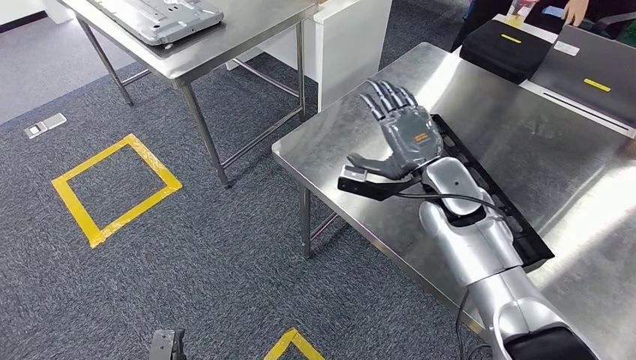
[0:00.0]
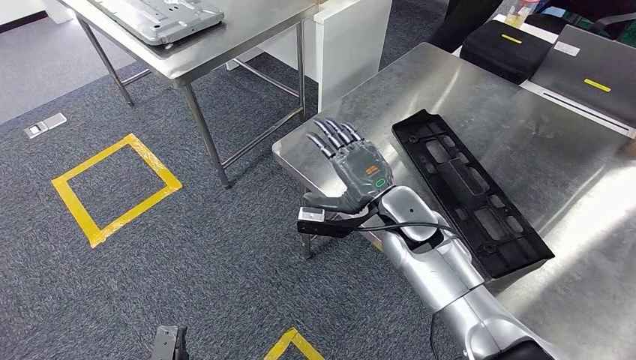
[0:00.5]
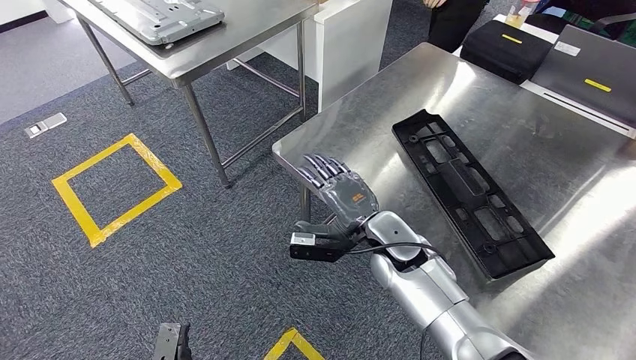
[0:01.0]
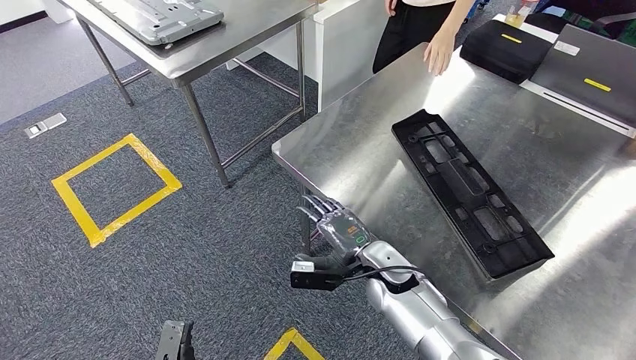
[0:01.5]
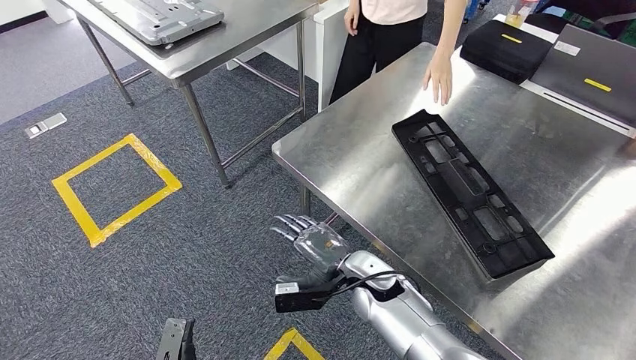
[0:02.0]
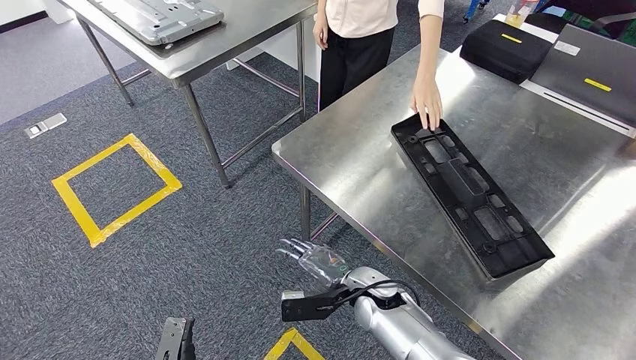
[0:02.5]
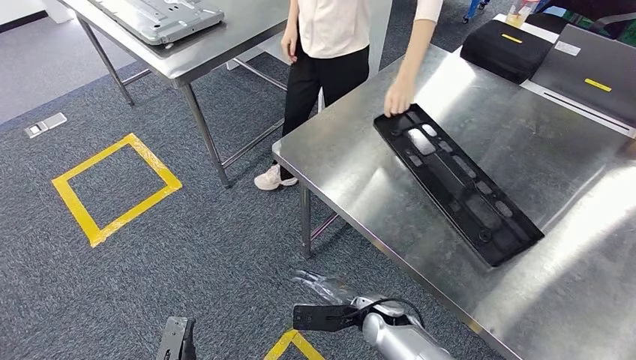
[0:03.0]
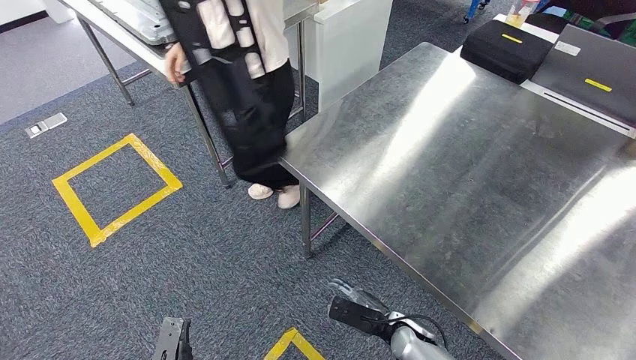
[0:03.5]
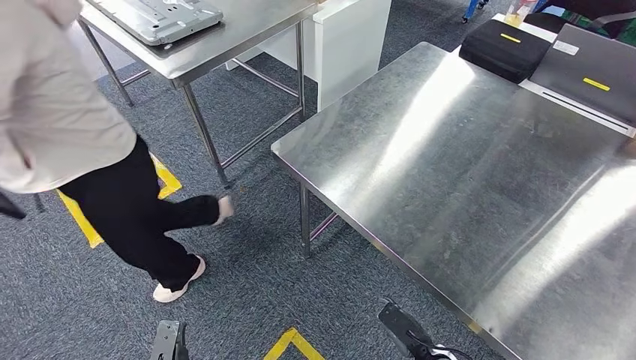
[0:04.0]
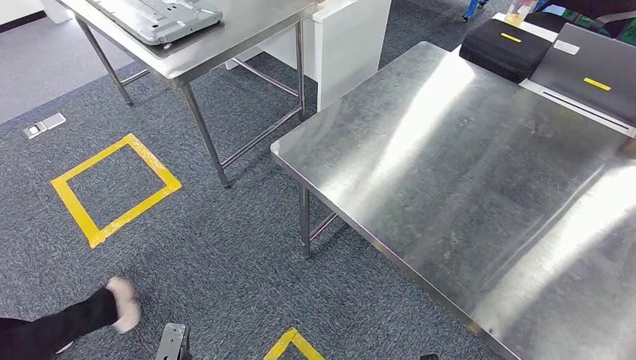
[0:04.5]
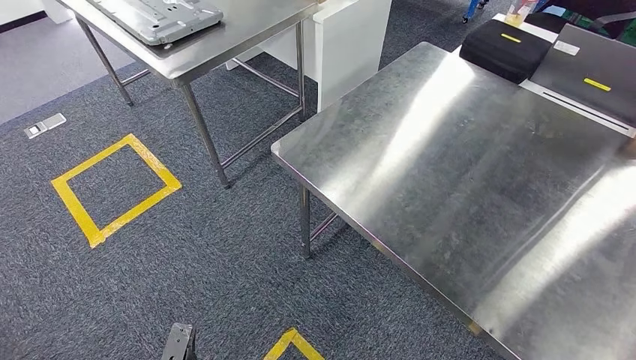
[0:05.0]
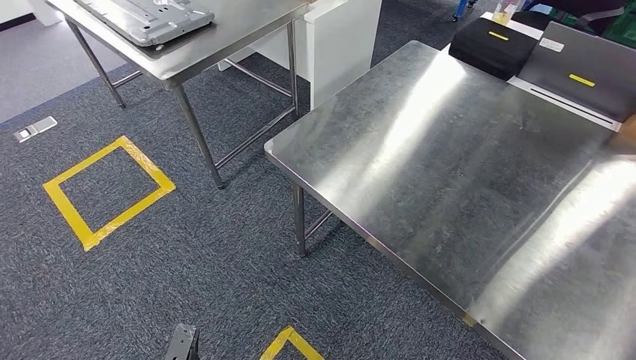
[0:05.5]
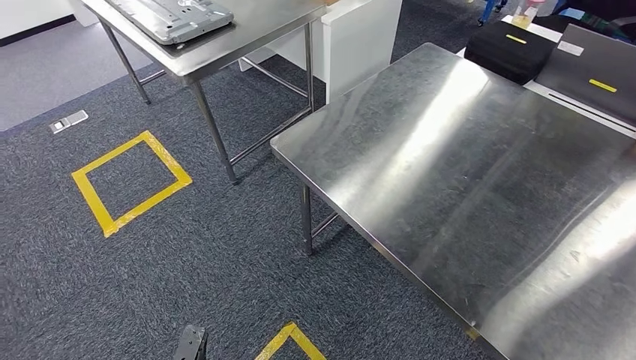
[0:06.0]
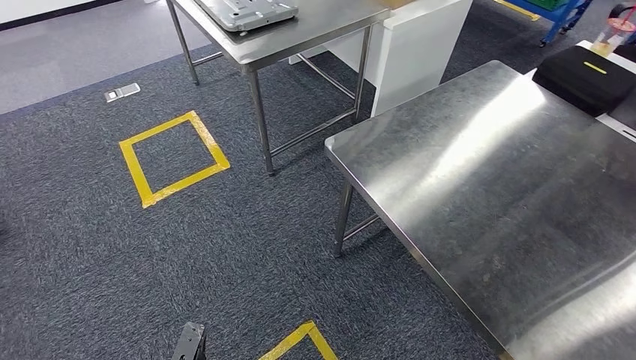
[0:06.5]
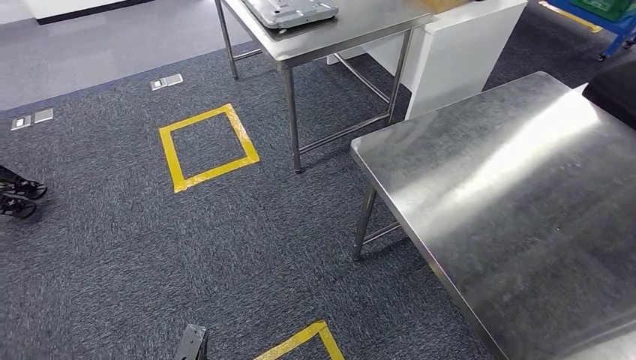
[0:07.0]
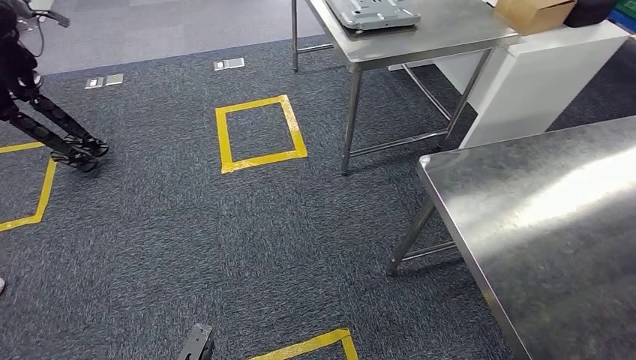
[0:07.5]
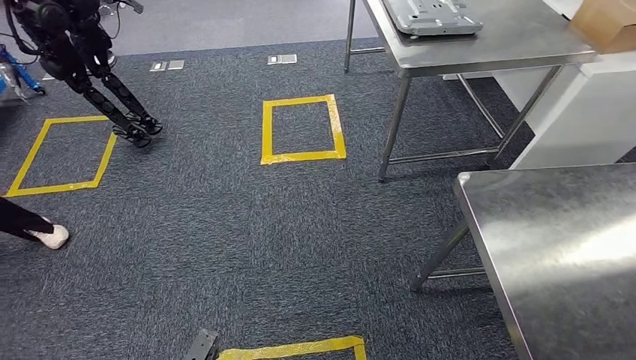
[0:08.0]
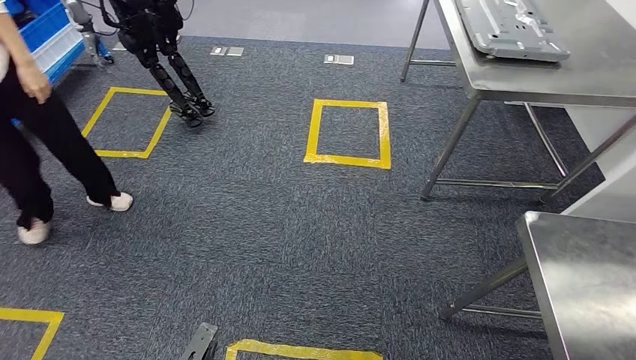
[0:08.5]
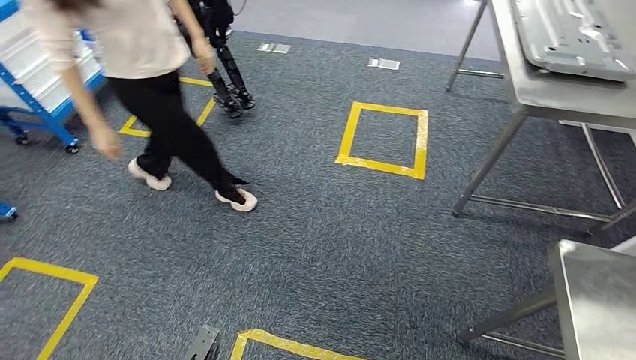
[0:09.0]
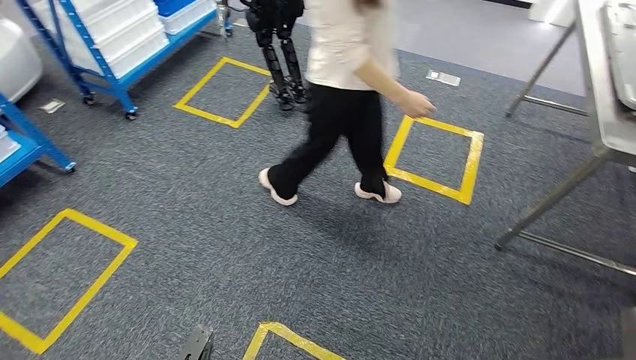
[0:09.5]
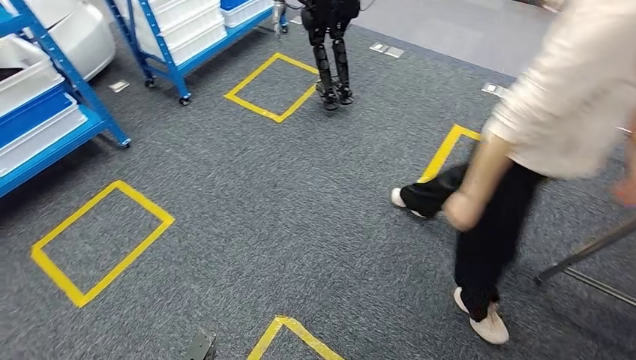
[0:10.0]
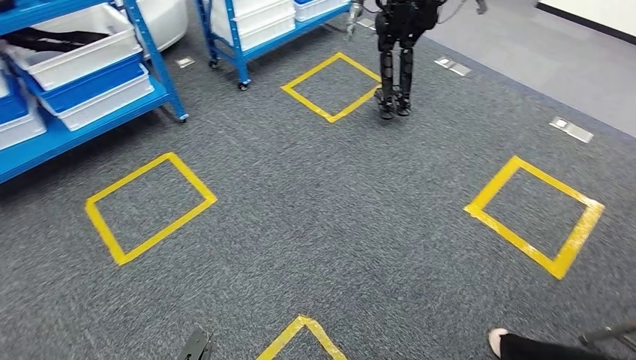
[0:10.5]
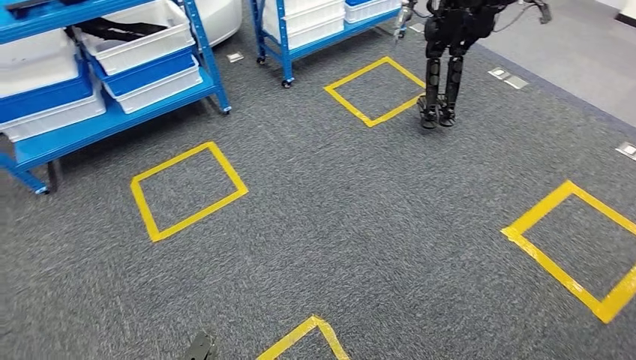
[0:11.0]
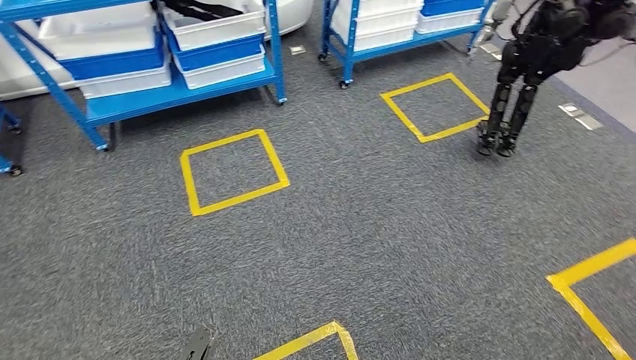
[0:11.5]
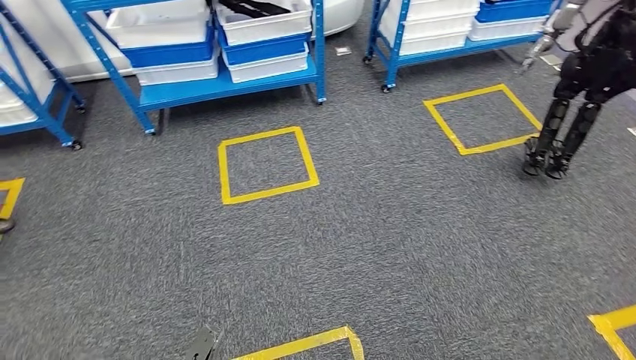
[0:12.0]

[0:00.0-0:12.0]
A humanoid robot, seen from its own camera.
Step, 0:00.0 to 0:04.5: Insert the large material into the corresponding hole on the workbench.

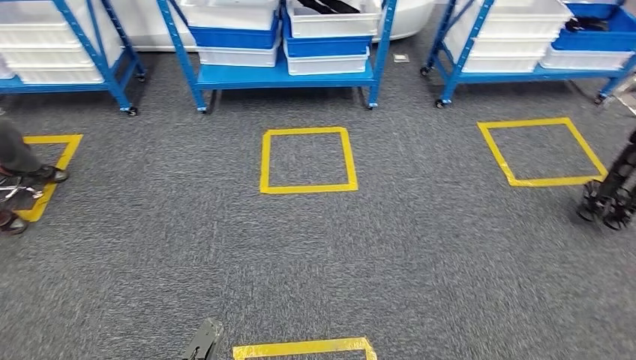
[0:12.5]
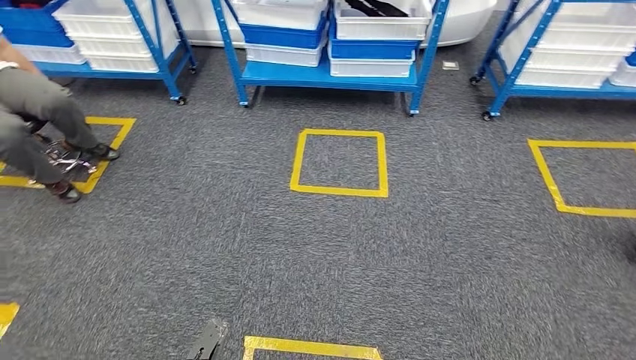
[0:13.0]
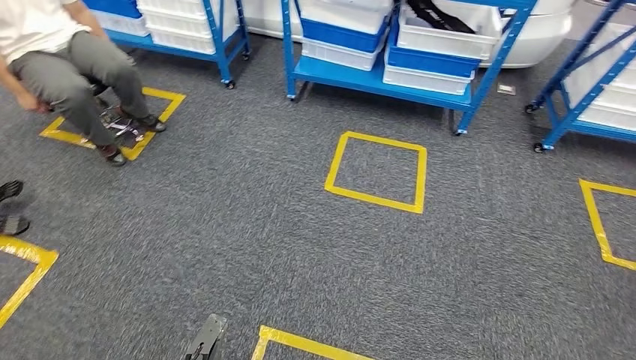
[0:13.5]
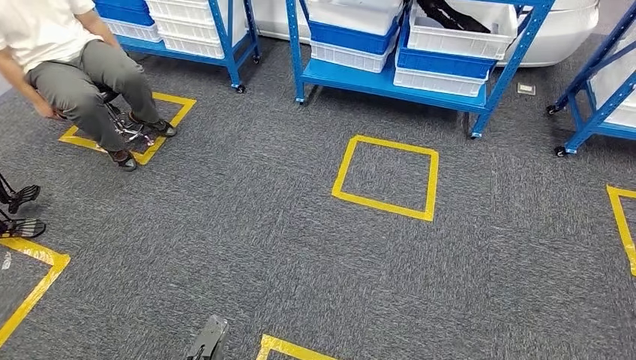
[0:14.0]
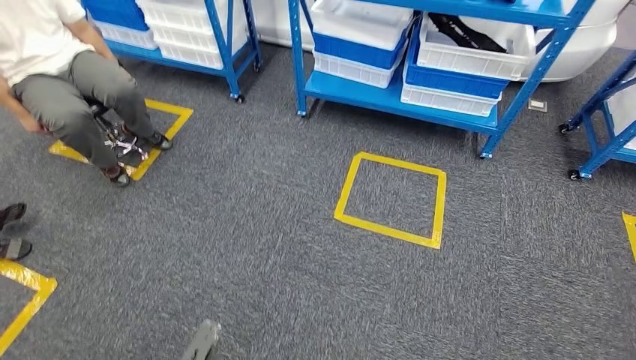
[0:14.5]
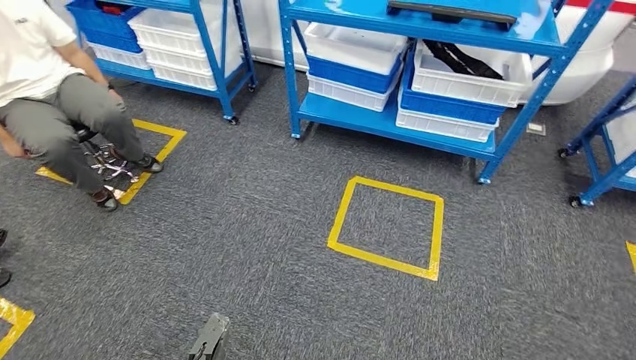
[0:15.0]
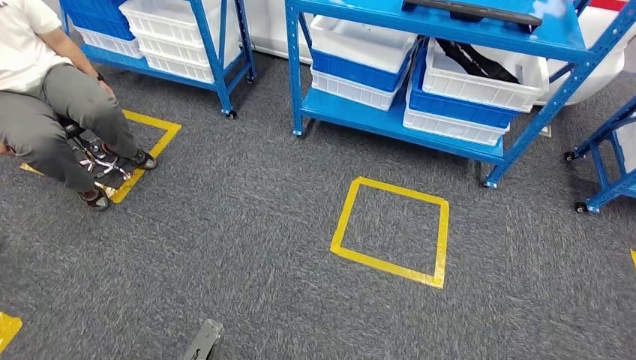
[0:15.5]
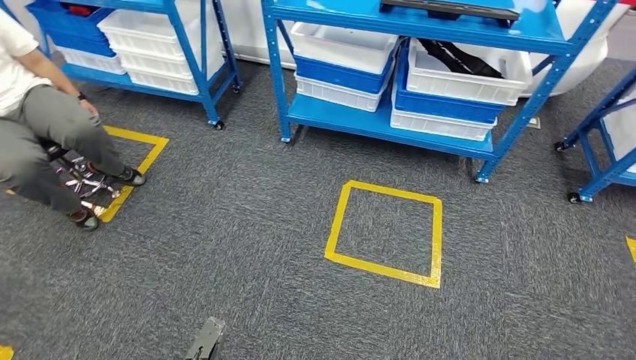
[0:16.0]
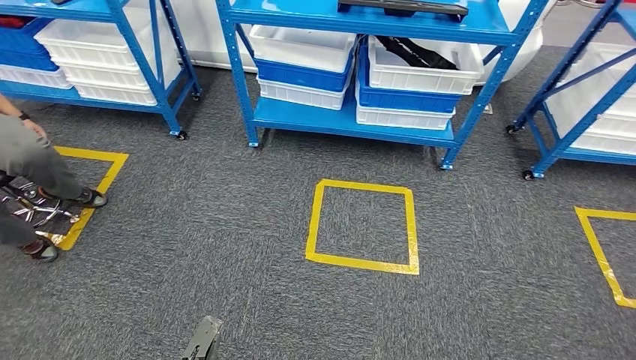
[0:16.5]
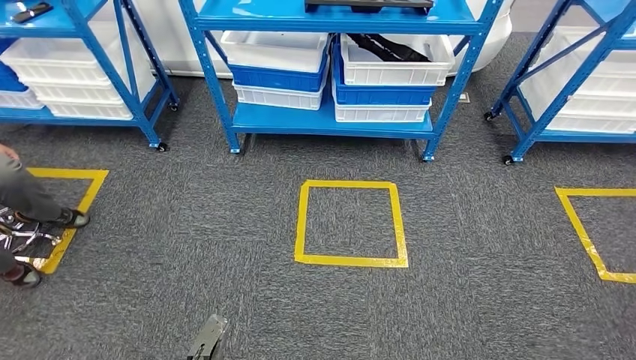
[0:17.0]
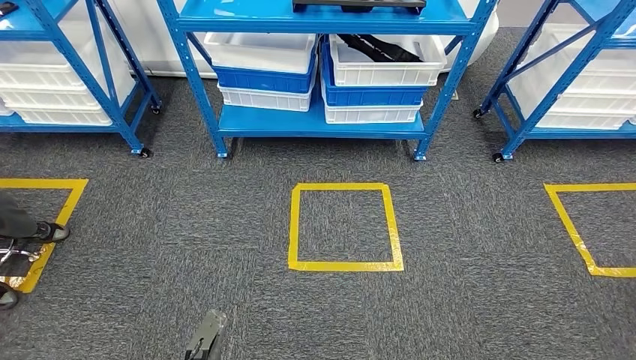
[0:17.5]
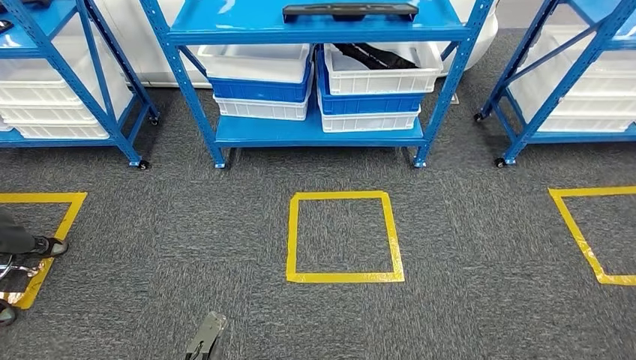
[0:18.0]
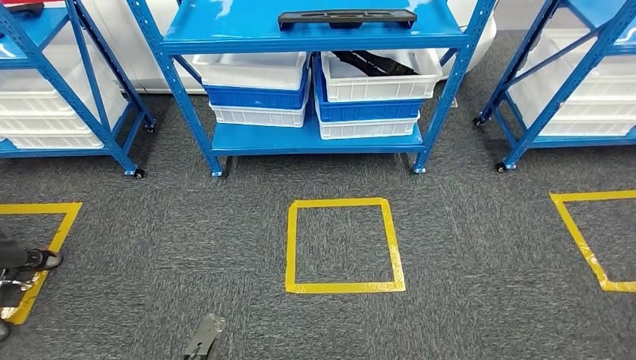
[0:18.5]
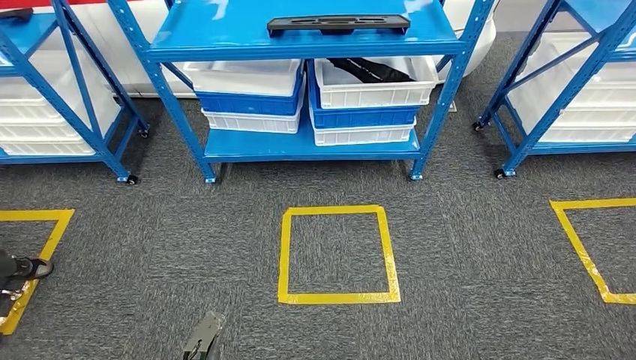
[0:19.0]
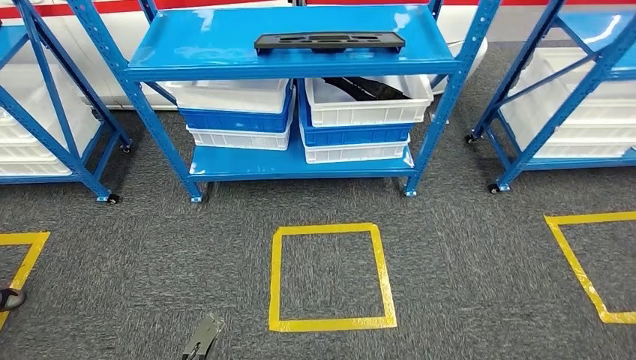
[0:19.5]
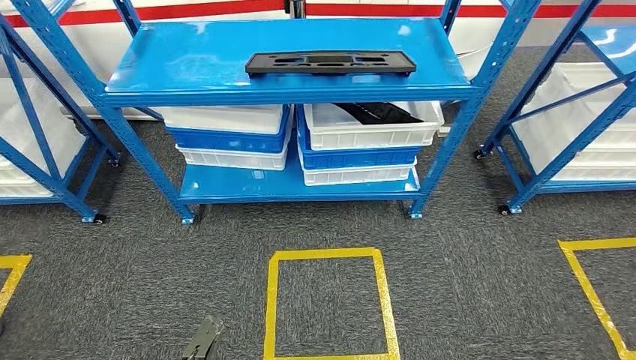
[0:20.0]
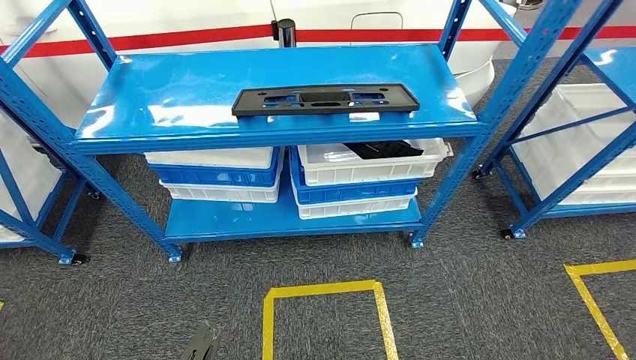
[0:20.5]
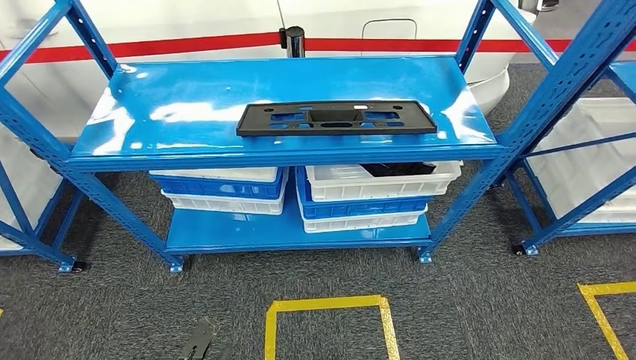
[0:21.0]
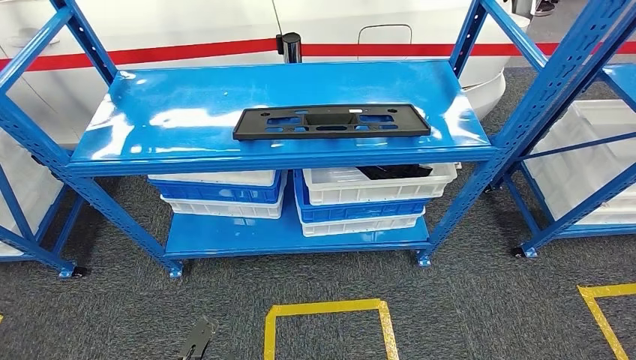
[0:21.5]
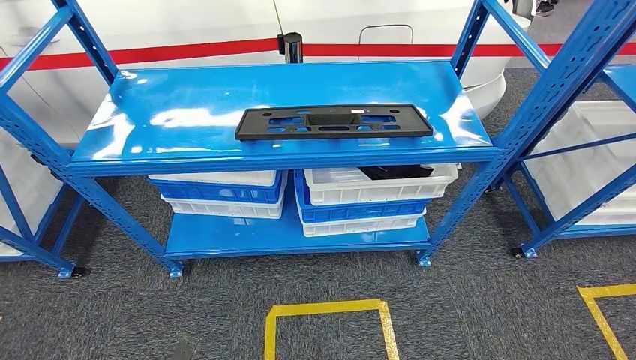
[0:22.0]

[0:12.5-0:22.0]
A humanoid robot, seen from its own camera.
Step, 0:12.5 to 0:22.0: Move to the initial position of the shelf.
